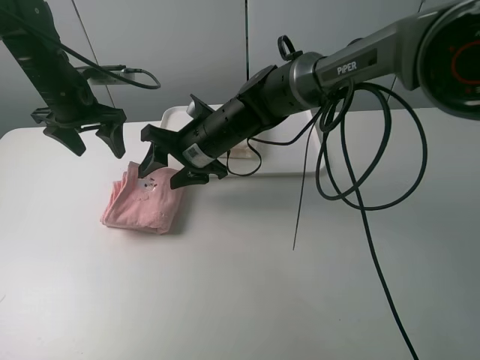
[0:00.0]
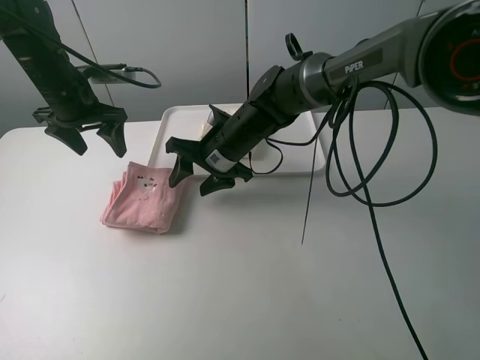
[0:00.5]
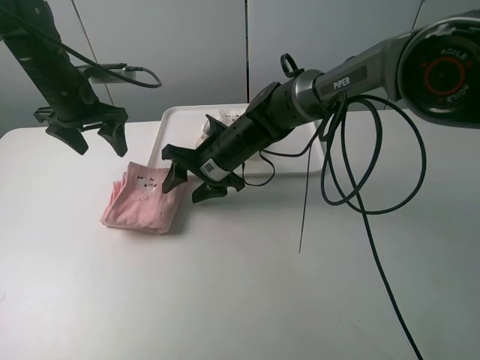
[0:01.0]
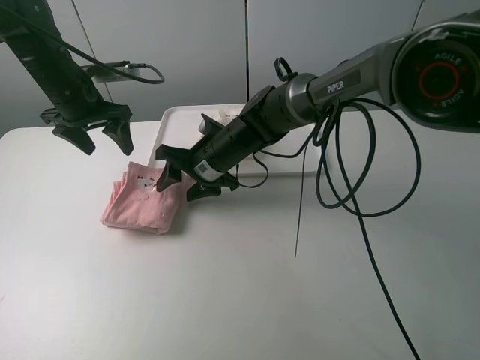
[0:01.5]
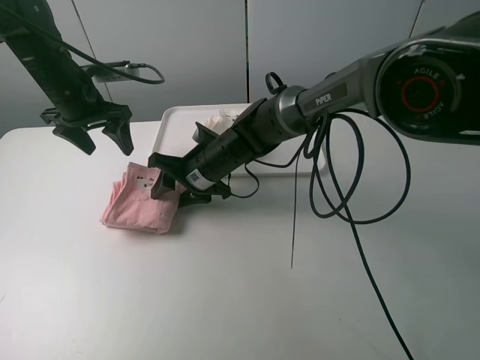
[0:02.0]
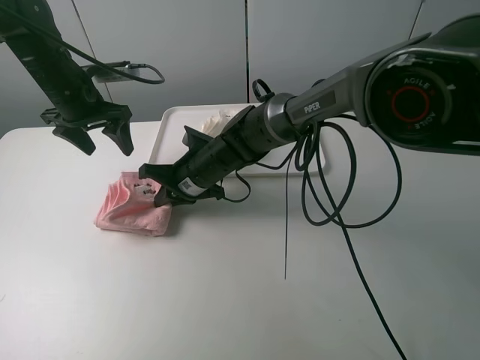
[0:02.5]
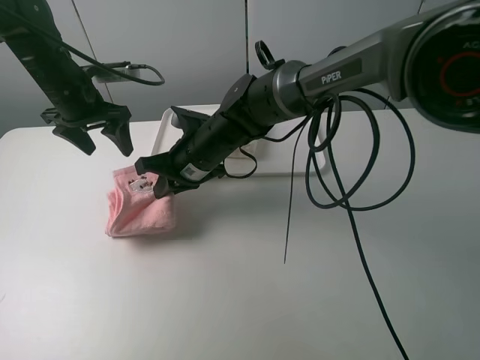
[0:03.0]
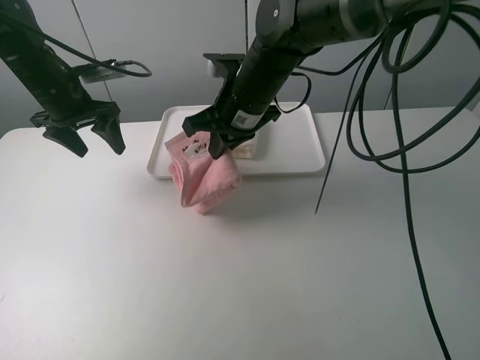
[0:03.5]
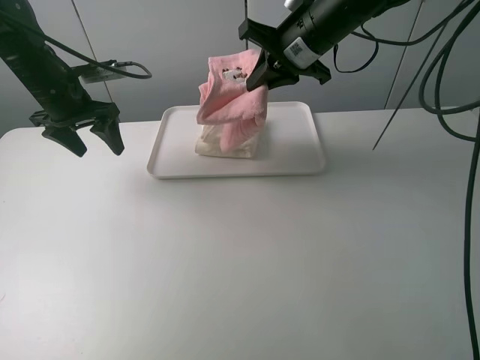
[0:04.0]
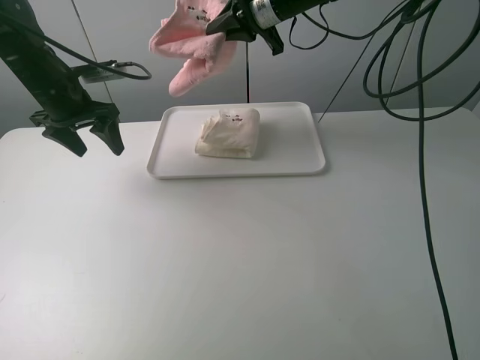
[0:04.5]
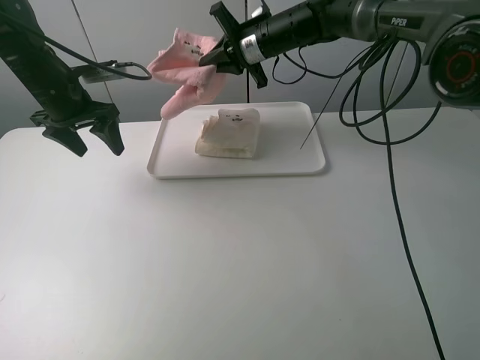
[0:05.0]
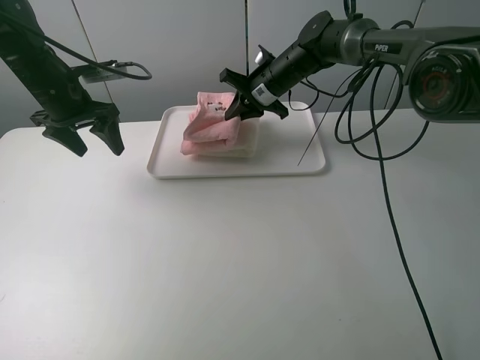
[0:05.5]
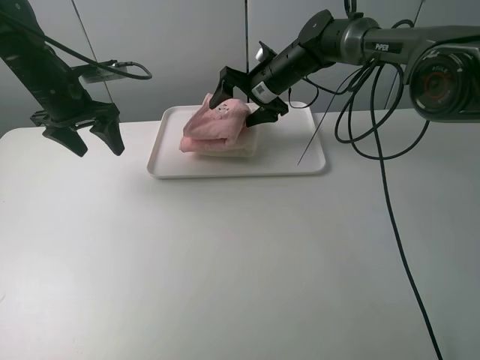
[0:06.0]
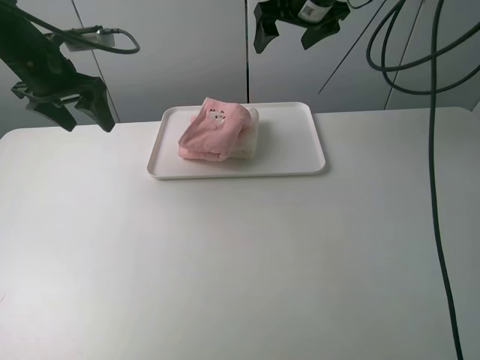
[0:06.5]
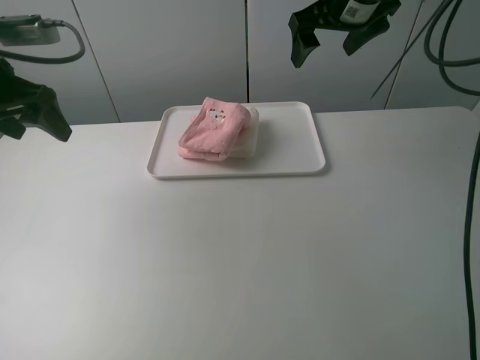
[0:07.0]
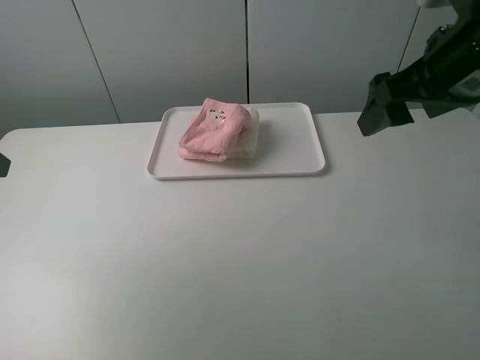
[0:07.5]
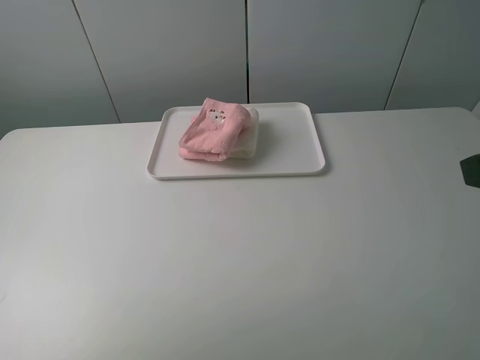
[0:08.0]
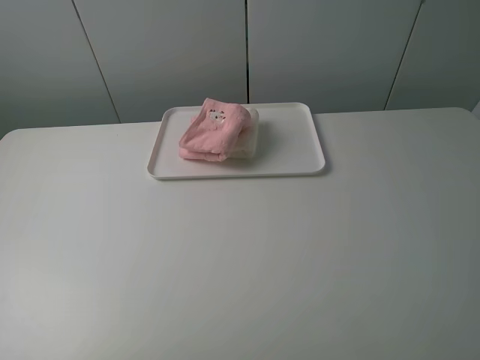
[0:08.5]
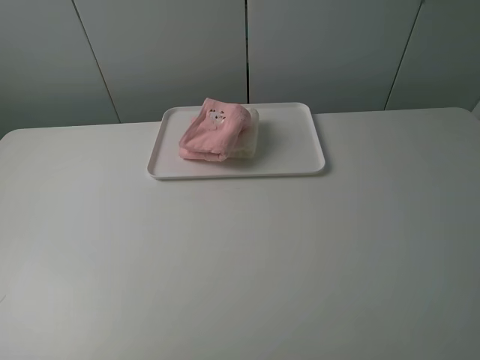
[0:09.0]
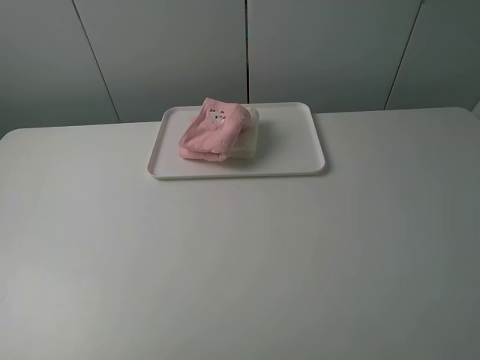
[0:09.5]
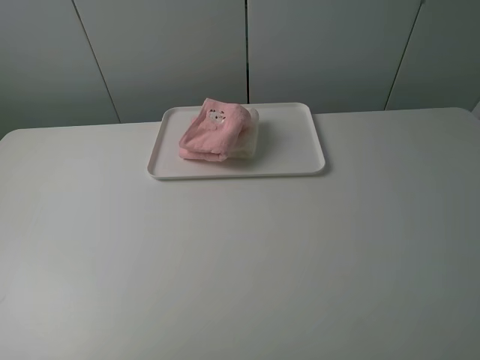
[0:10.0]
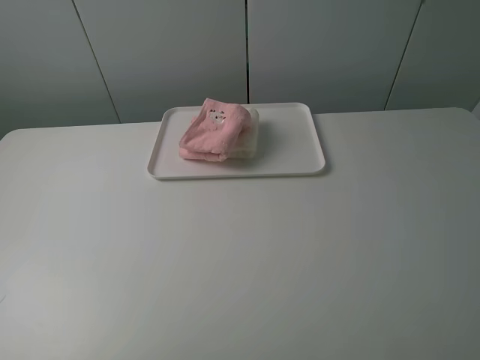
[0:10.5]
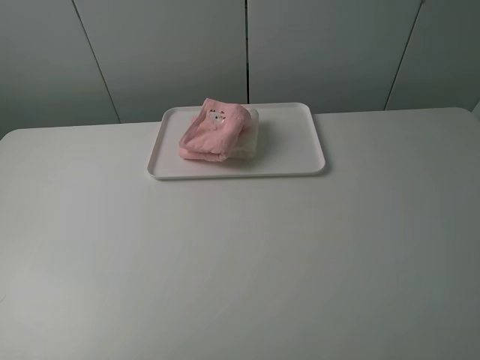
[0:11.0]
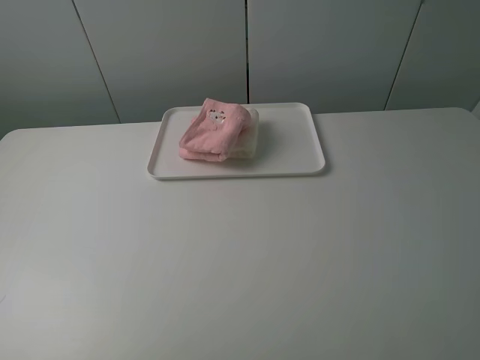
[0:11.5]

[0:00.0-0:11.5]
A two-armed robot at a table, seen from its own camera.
Task of the whole recording: fold one of the towels by two grippers and place it on the tray,then fold another towel by two grippers and place it on the folded towel.
Step, 0:00.0 to 0:02.0: Grasp the pink towel with the right gripper.
Step, 0:02.5 to 0:06.0: Place the pink towel on the white towel with the right gripper.
0:00.0 to 0:02.0: The right gripper moves downward, approximately 5 cm.
0:02.0 to 0:04.0: The right gripper shifts approximately 25 cm upward and to the right, and closes.
0:04.0 to 0:06.0: The right gripper moves downward and forward, approximately 15 cm, and opens.
0:06.0 to 0:07.5: The right gripper travels backward, upward and to the right by roughly 35 cm; the left gripper heads backward and upward, covering roughly 25 cm.
0:07.5 to 0:09.5: Both grippers travel together backward, approximately 20 cm.

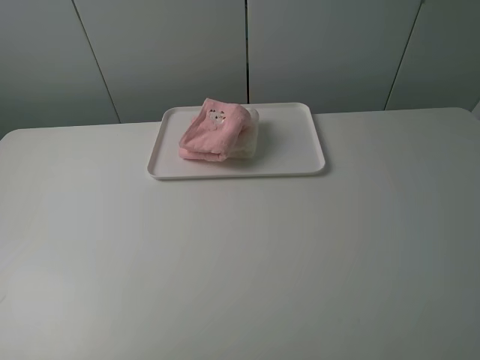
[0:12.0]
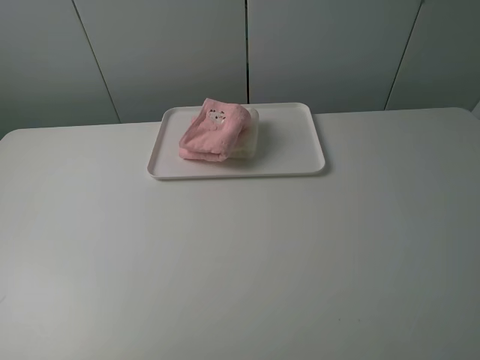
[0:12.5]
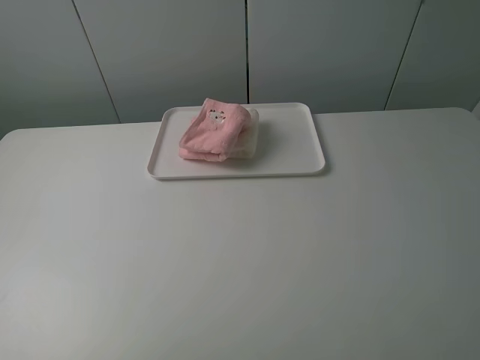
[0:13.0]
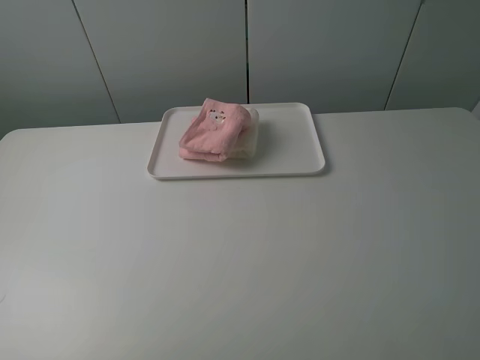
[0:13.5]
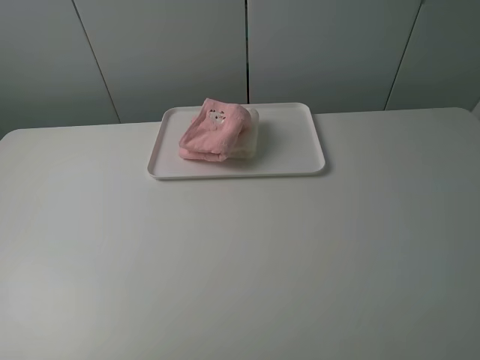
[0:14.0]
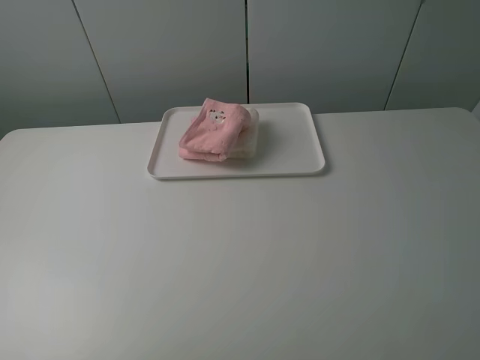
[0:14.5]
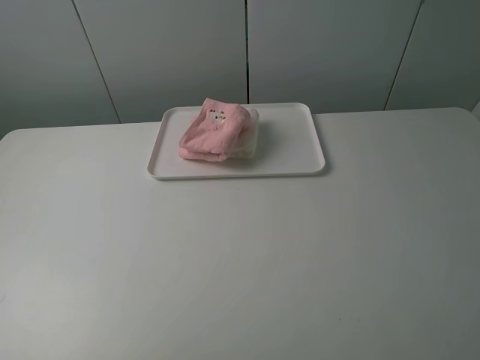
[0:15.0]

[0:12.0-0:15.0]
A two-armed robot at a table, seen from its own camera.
Task of the whole recording: fold one of the towels by two grippers and place it on the tray,then fold another towel by two grippers and place it on the folded towel.
0:12.0 to 0:15.0: The two grippers keep their place.

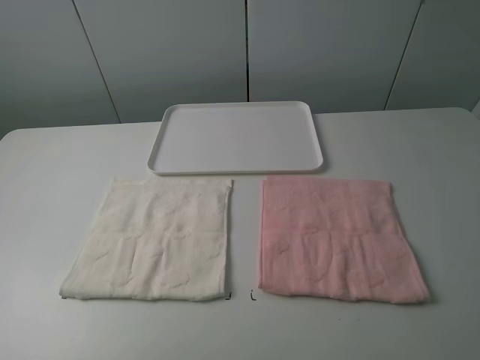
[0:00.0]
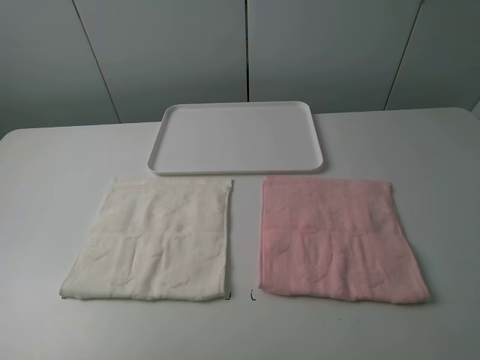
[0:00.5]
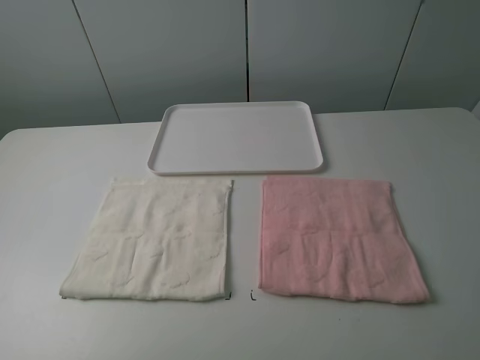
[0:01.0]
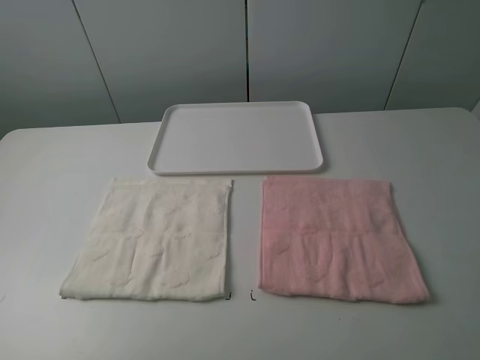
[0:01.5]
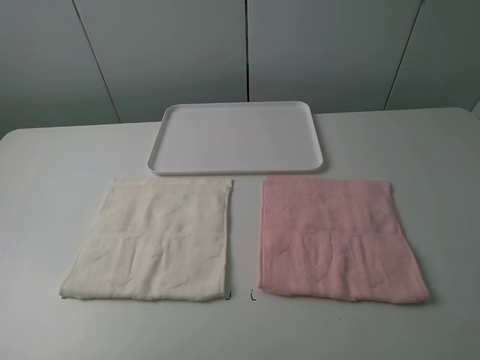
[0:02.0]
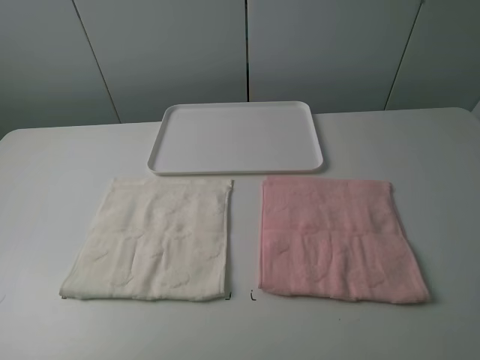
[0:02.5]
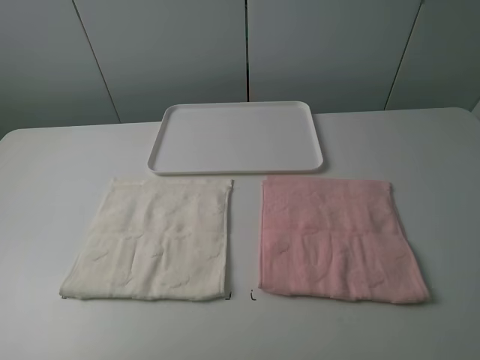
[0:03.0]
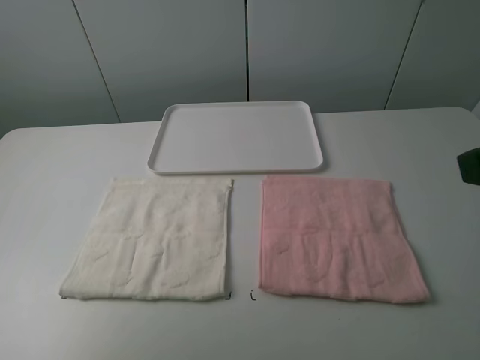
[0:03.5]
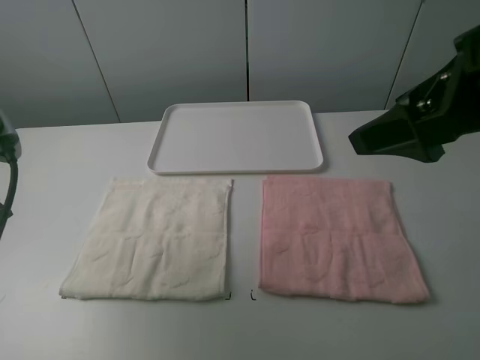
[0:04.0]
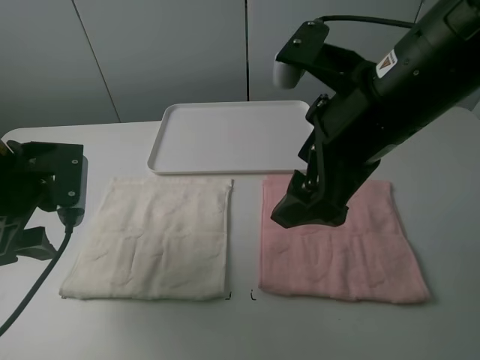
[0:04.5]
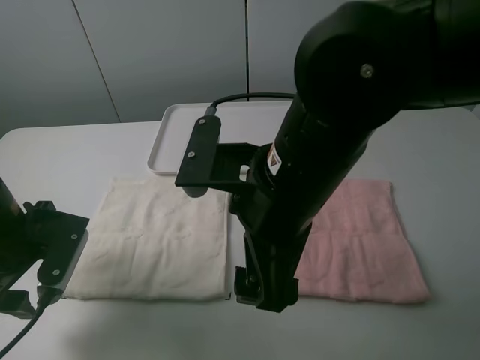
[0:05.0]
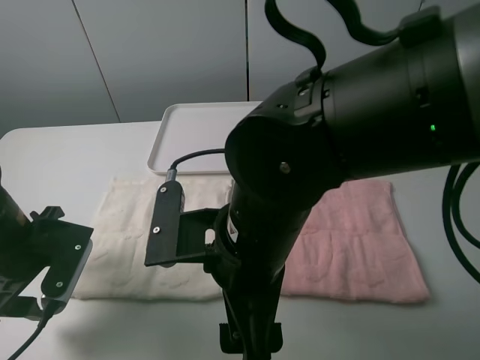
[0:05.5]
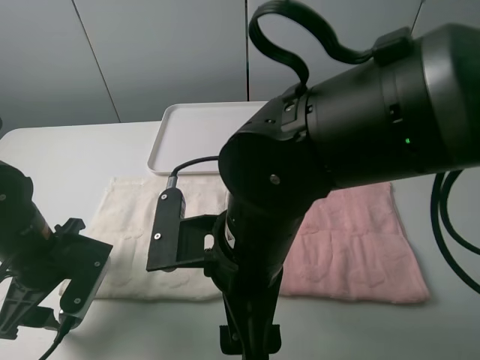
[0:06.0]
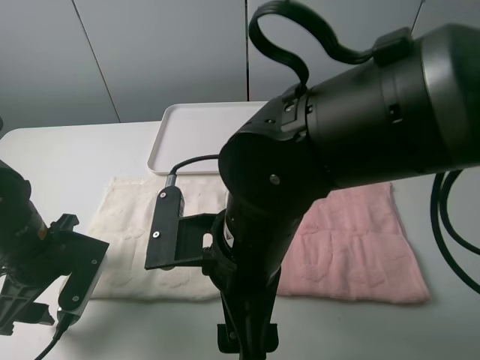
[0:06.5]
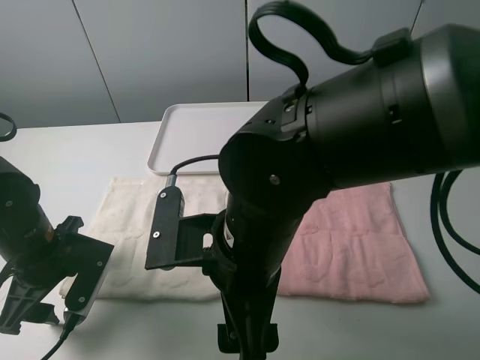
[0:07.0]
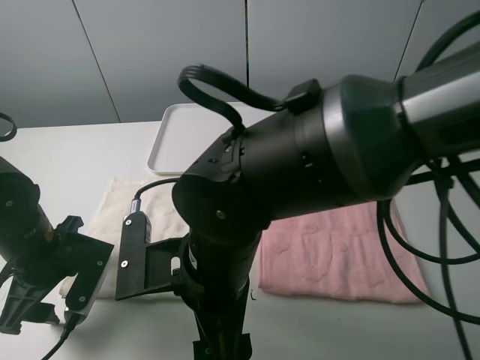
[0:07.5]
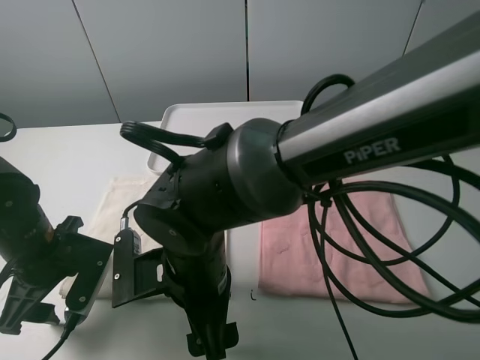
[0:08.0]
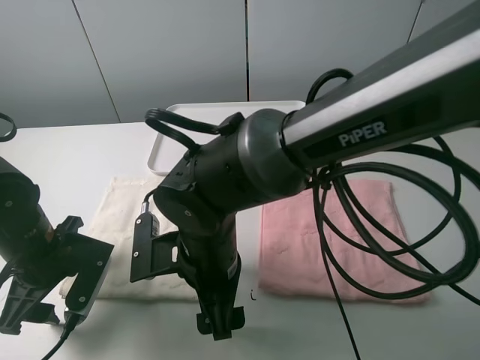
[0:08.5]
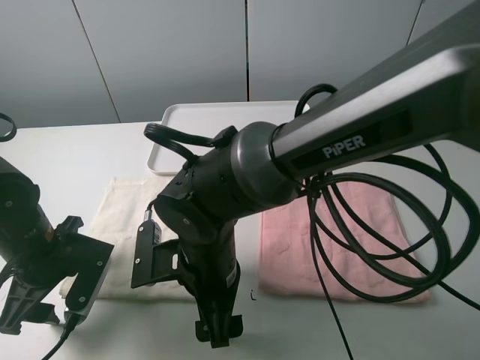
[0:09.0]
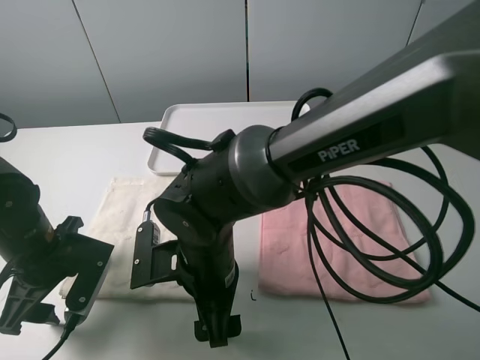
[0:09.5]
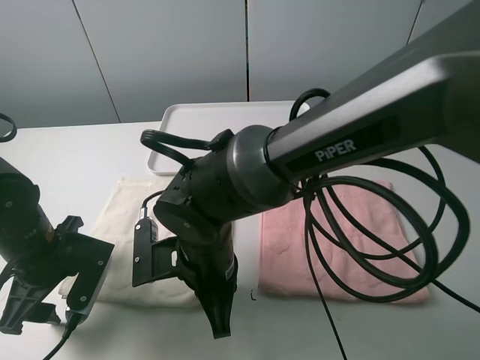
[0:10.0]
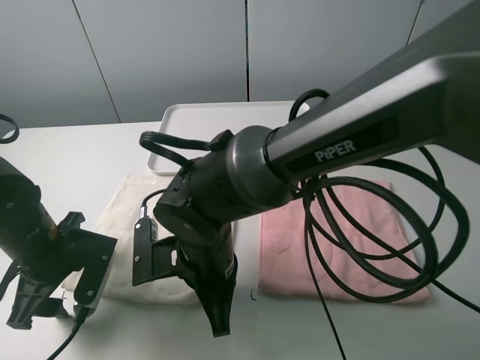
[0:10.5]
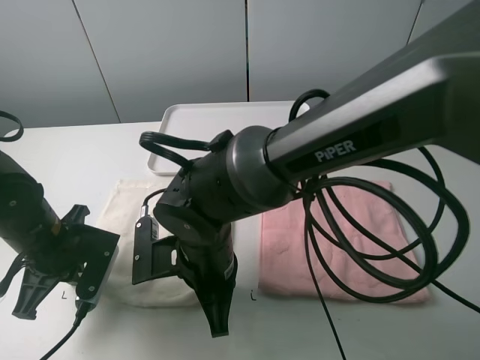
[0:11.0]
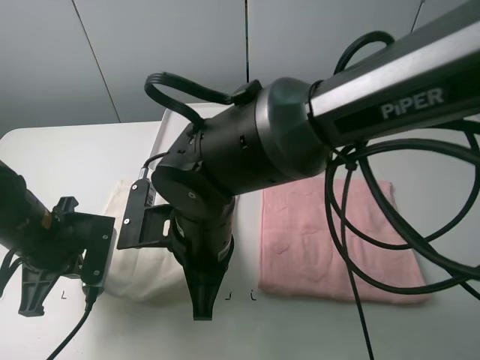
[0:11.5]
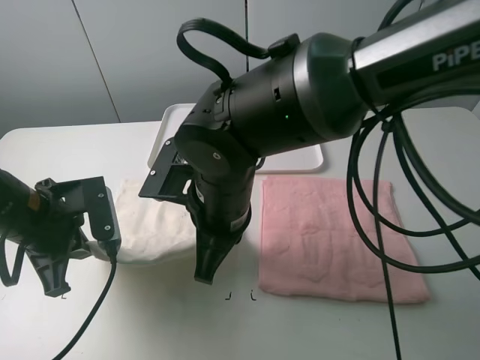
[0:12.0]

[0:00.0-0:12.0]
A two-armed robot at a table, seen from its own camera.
Task of the whole recording: fold one of the towels by two grippers and place it on the tray,then fold another towel by two grippers and place it on the folded towel.
Step, 0:00.0 to 0:10.5: Grasp the white towel with the left gripper.
0:00.0 to 0:02.0: The two grippers keep their place.
0:02.0 to 0:04.0: The right gripper travels forward and to the left by roughly 20 cm. Meanwhile the left gripper shifts some 20 cm forward.
0:04.0 to 0:06.0: The left gripper goes some 15 cm downward. Meanwhile the right gripper shifts approximately 25 cm to the left and downward.
0:06.0 to 0:08.0: The right gripper shifts some 10 cm downward and to the left.
0:08.0 to 0:10.0: The right gripper closes.
0:10.0 to 0:12.0: The left gripper ends up roughly 5 cm from where it was, and closes up, while the right gripper moves upward, roughly 5 cm.
